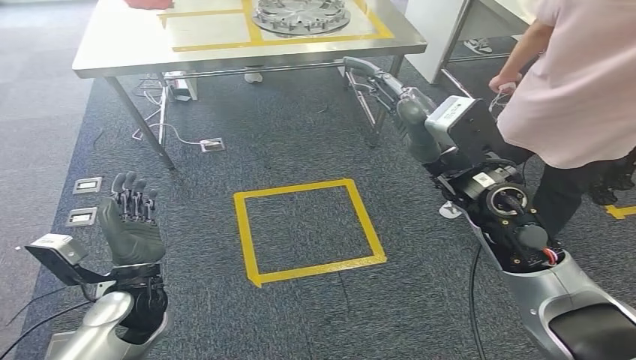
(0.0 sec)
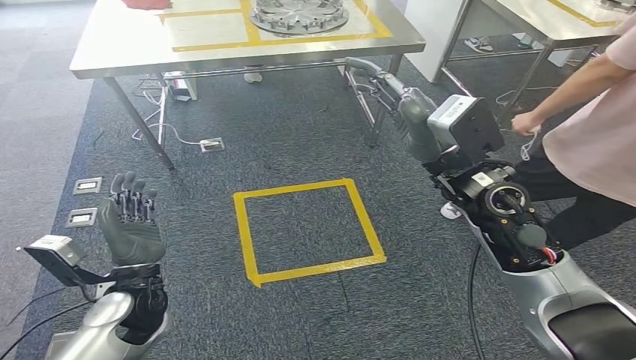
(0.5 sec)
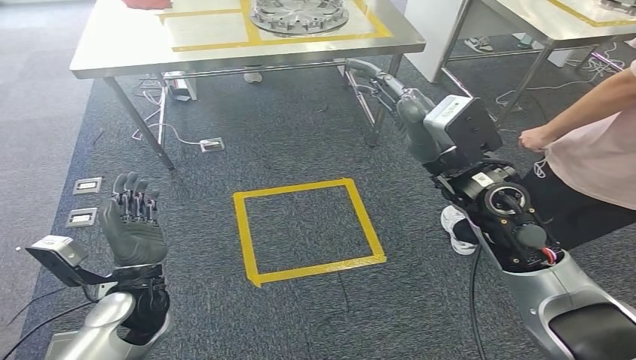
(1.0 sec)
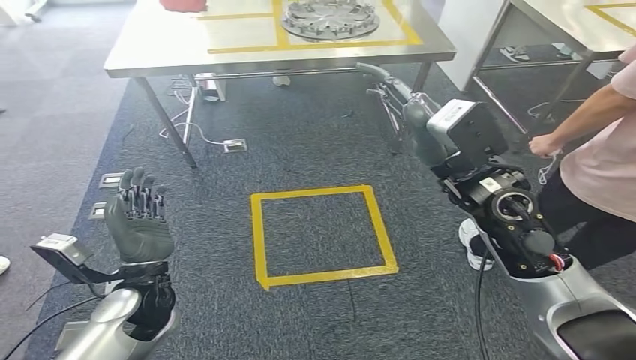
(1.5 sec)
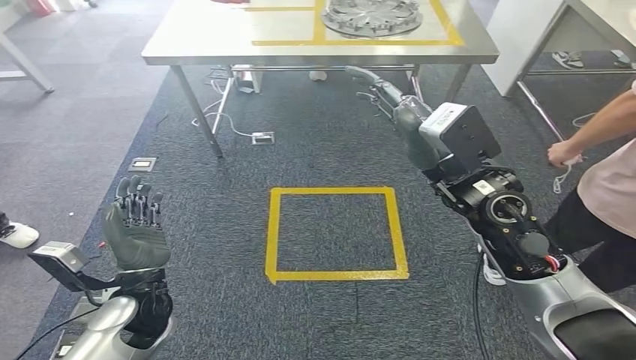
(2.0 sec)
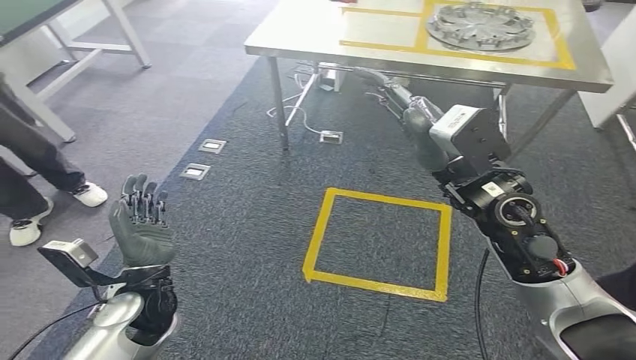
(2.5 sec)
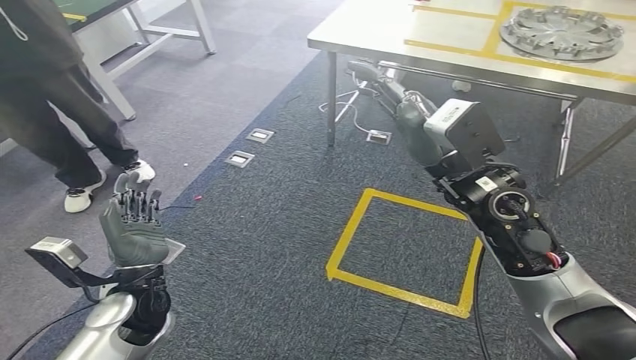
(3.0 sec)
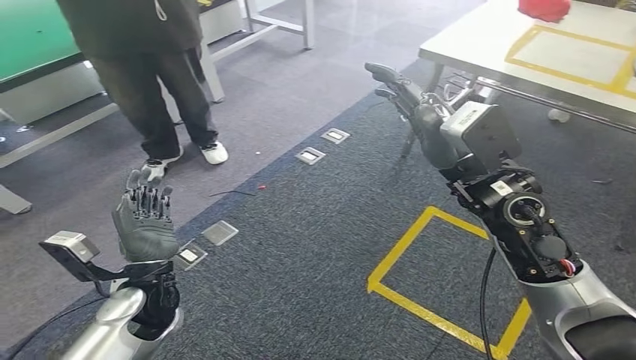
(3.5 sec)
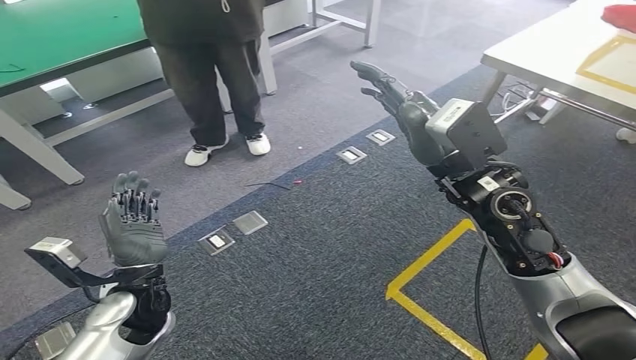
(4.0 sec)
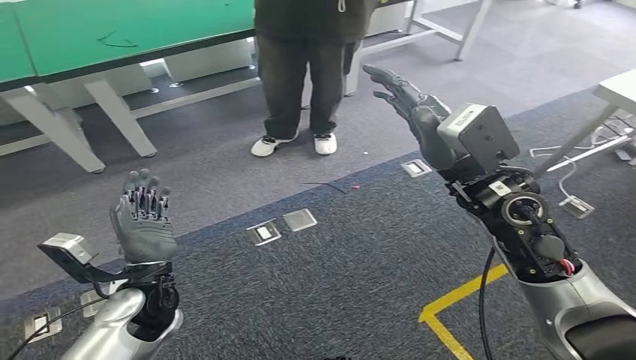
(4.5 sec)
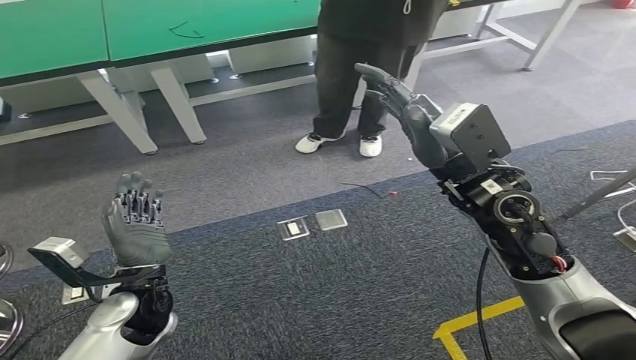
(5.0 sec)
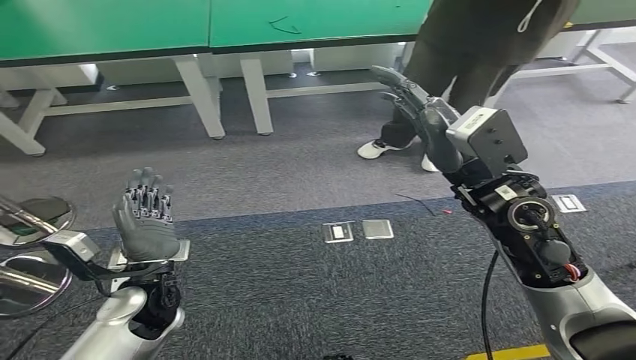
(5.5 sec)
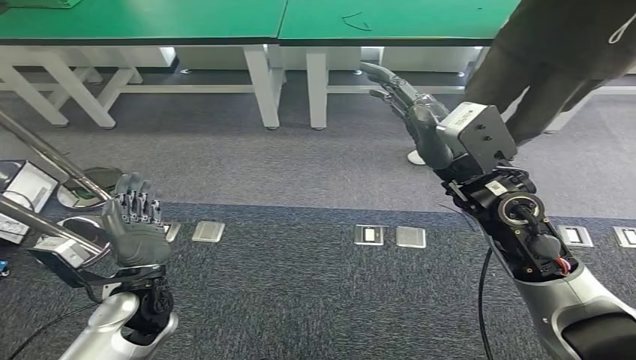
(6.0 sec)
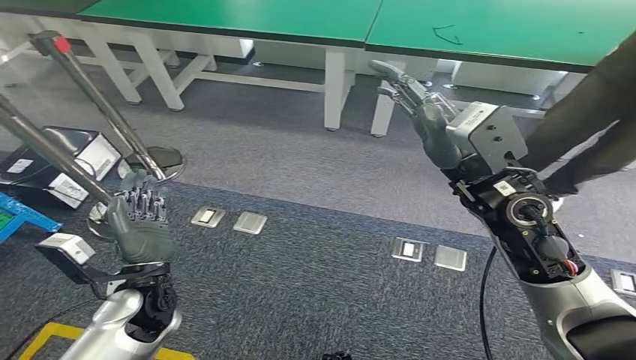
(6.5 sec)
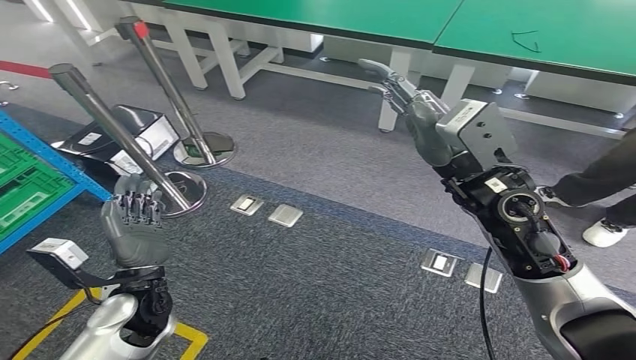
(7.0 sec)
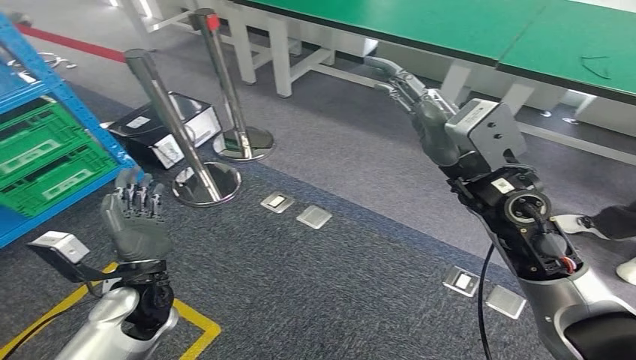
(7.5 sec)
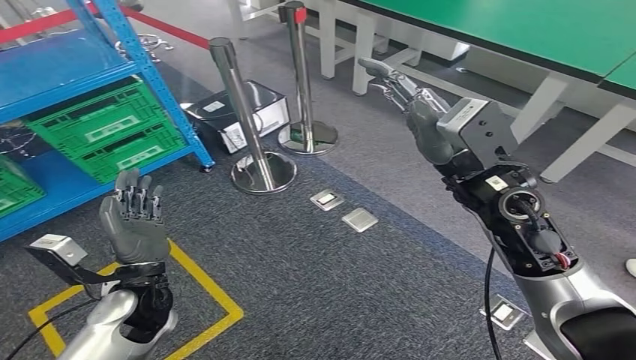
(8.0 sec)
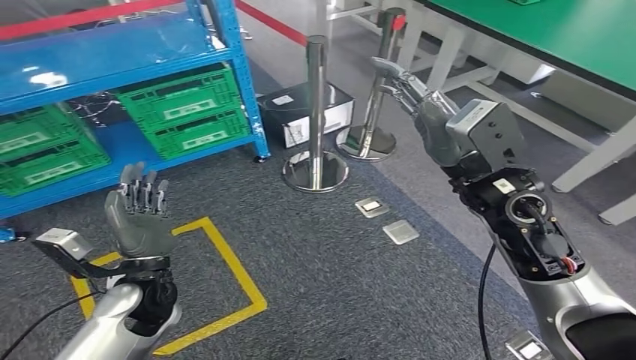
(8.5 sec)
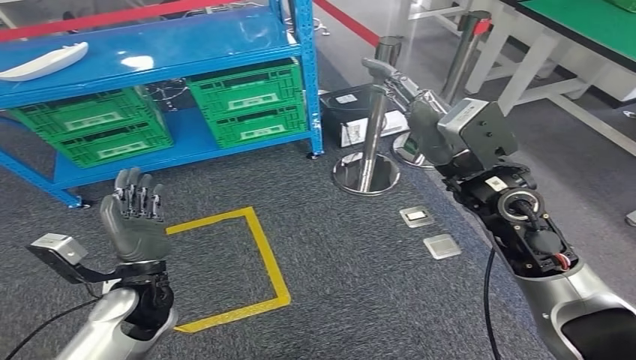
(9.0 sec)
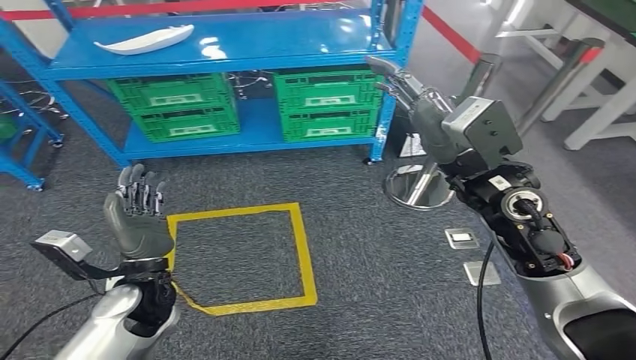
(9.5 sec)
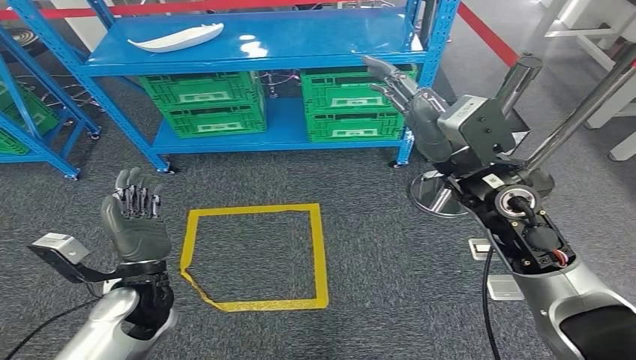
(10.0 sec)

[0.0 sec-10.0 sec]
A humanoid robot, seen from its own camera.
Step, 0.0 sec to 10.0 sec: Return to the initial position at the workbench.

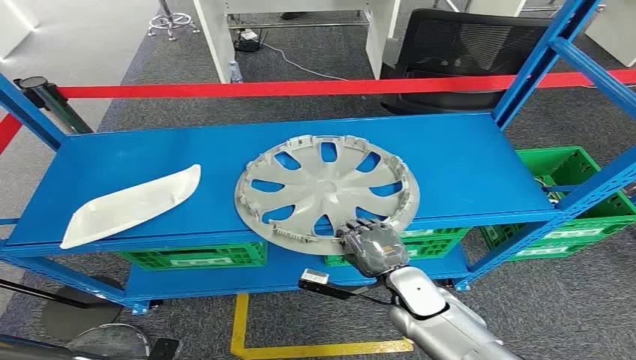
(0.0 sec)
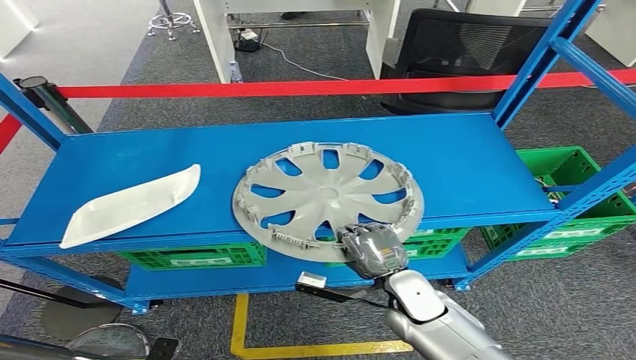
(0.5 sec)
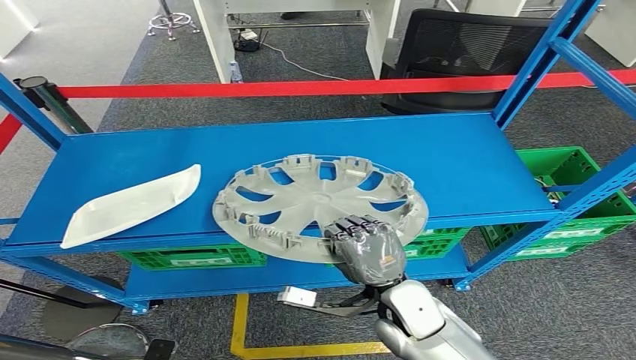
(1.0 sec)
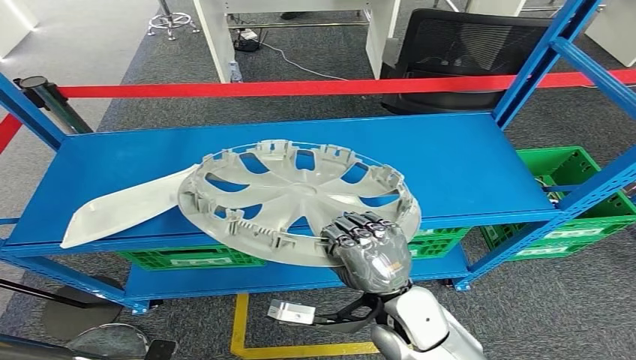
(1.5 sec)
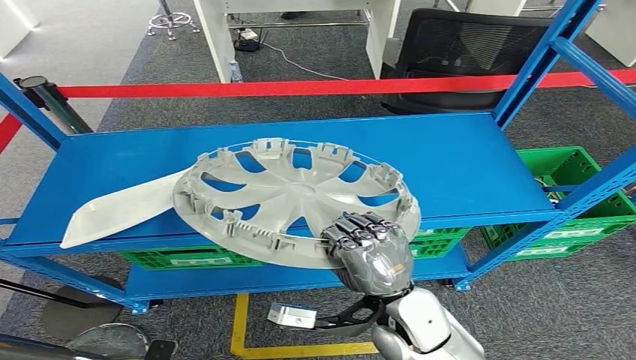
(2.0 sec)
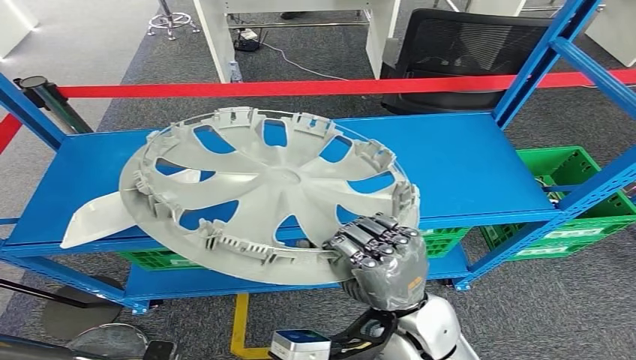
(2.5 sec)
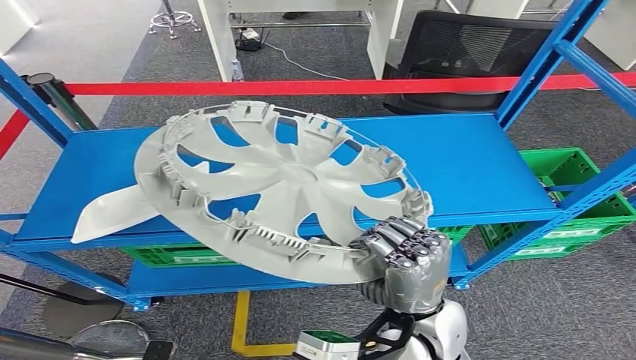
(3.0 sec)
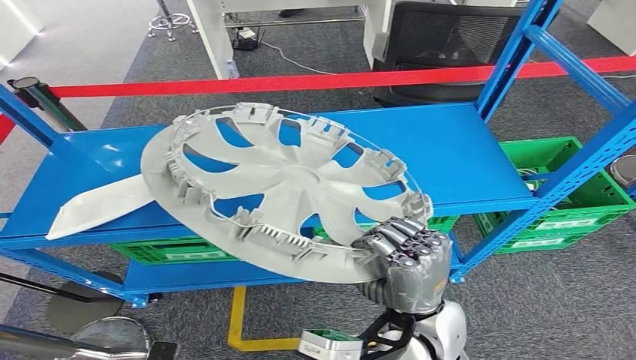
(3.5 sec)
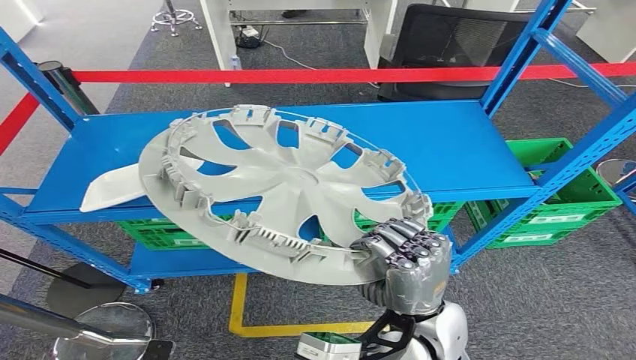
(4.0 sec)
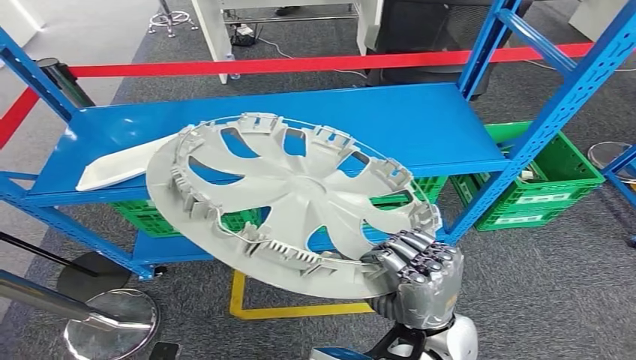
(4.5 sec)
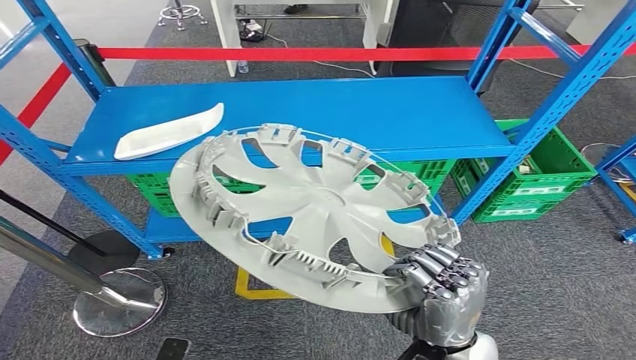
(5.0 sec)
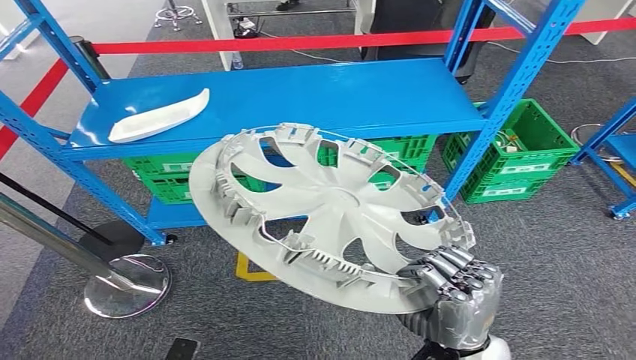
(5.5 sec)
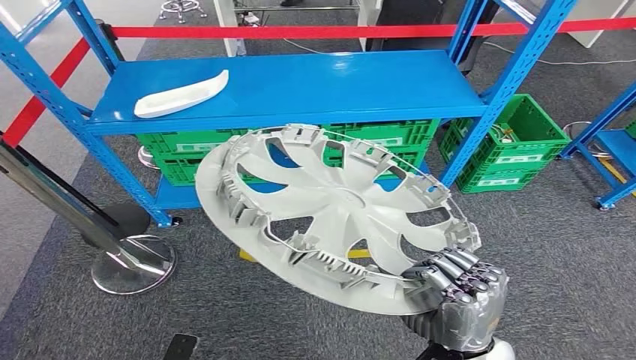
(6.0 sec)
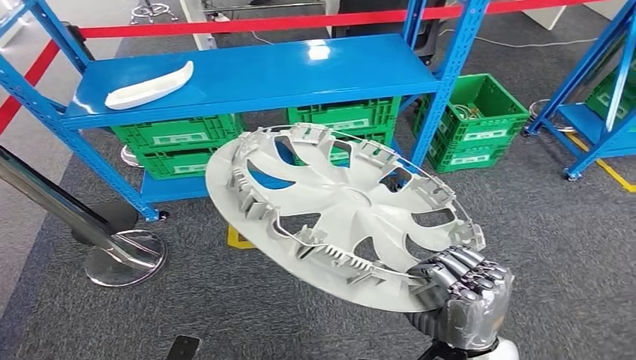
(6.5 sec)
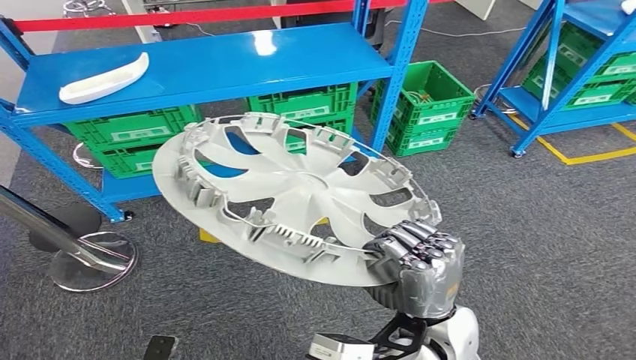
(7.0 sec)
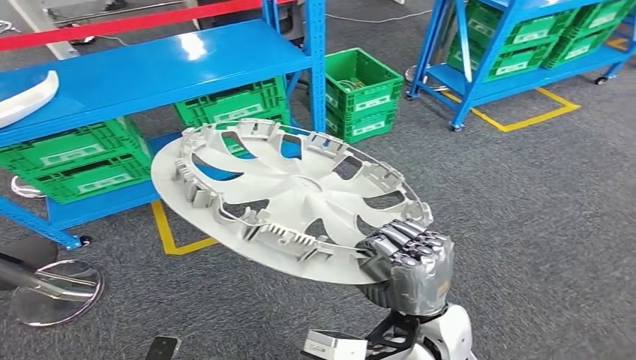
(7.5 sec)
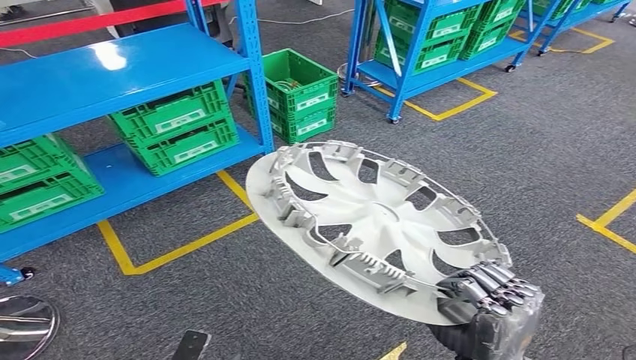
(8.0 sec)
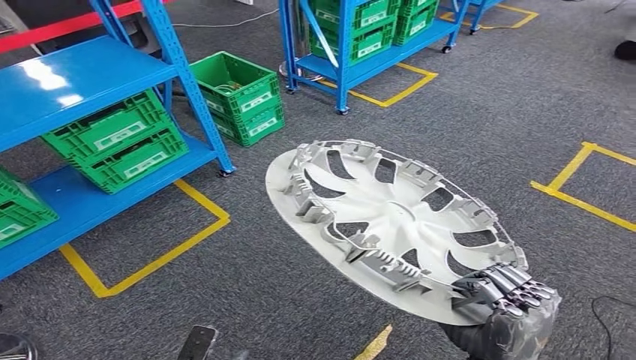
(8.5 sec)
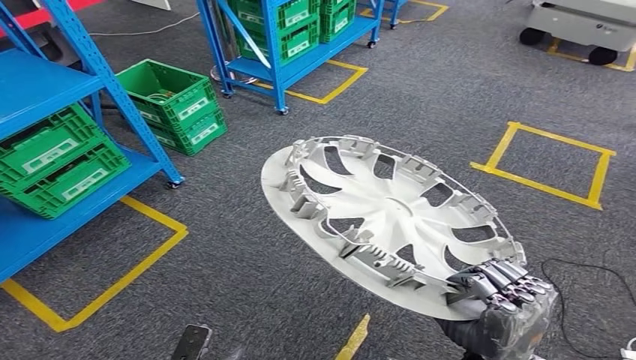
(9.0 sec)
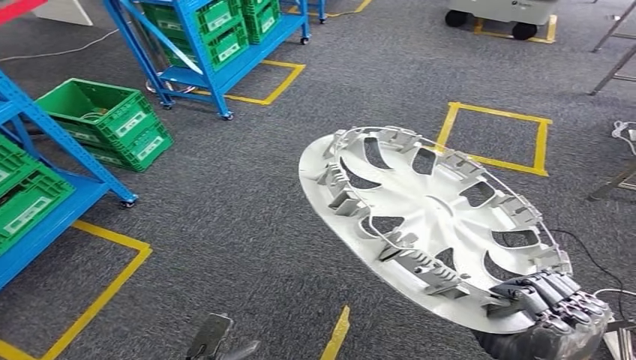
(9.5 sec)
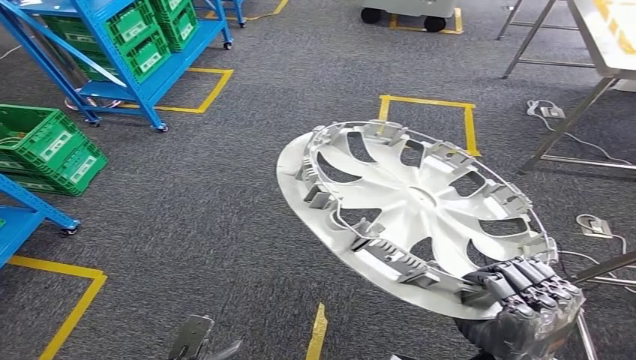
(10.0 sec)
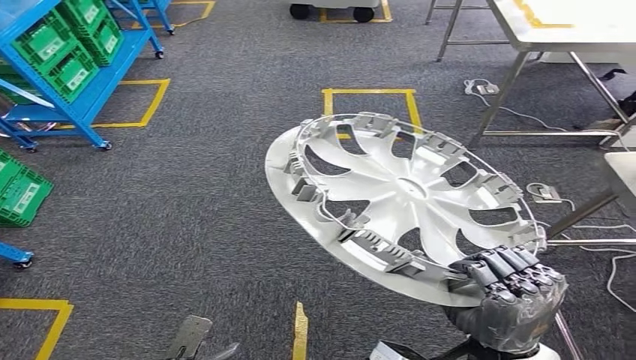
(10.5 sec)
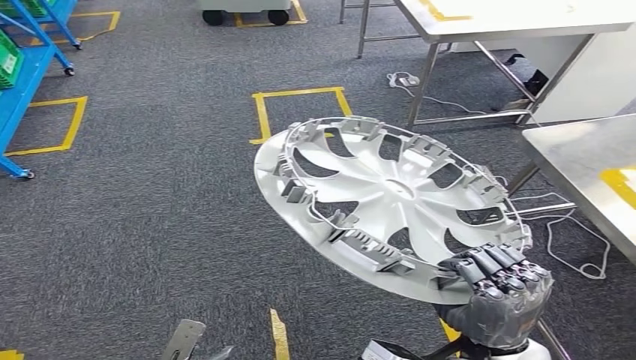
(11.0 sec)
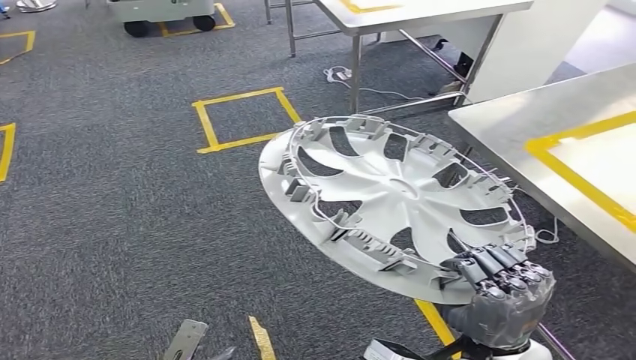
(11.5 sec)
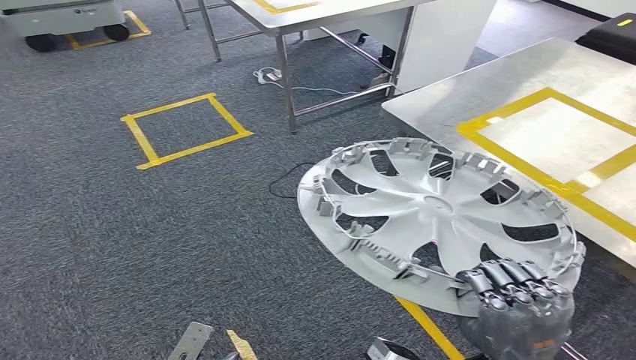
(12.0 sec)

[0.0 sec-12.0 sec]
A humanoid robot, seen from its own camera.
Step, 0.0 sec to 1.5 sec: Pick up the small component from the shelf.
